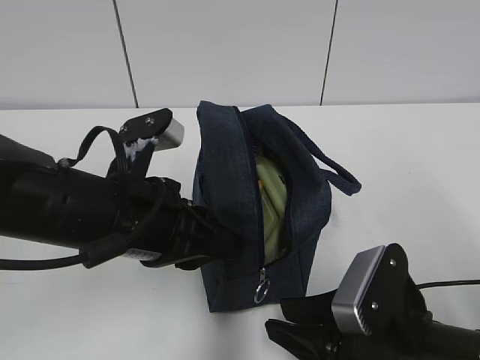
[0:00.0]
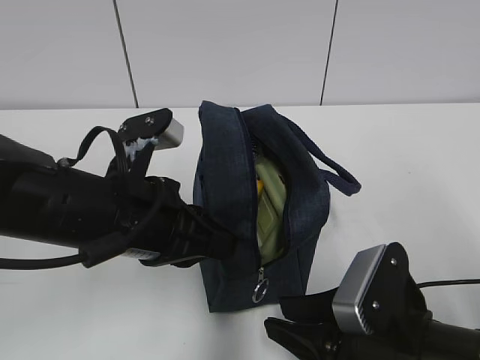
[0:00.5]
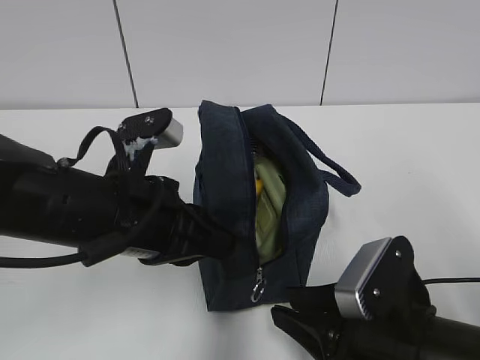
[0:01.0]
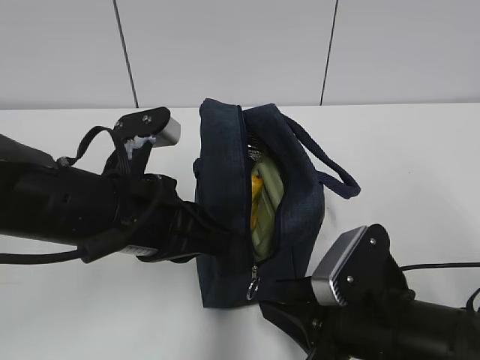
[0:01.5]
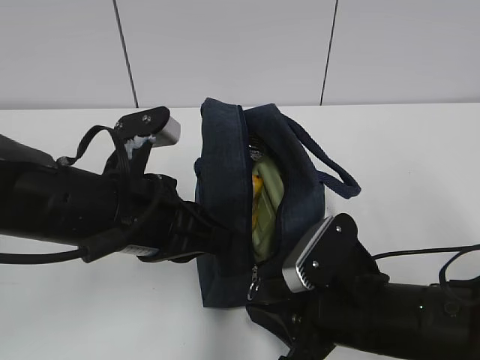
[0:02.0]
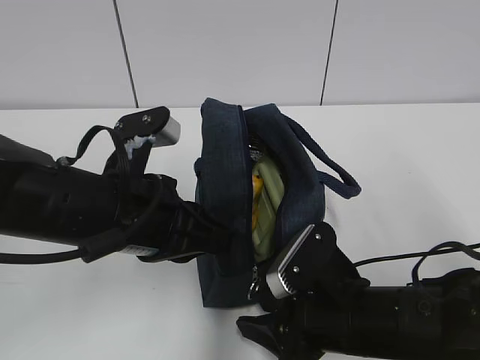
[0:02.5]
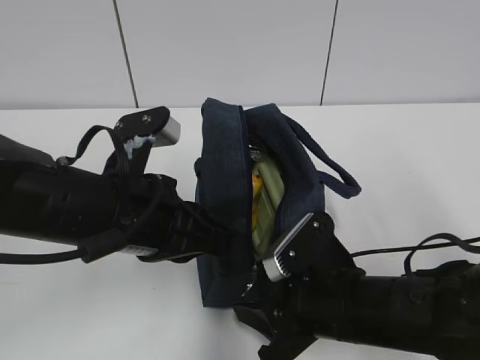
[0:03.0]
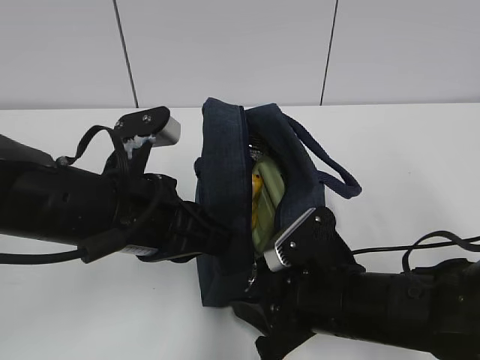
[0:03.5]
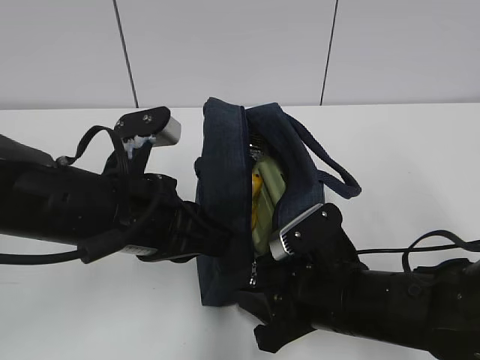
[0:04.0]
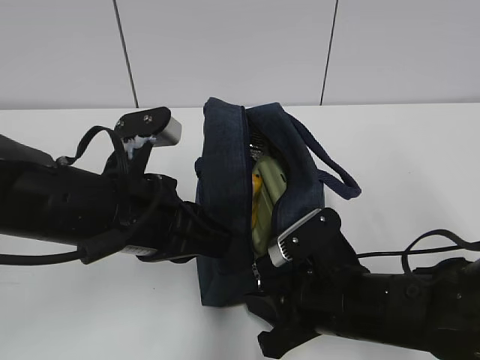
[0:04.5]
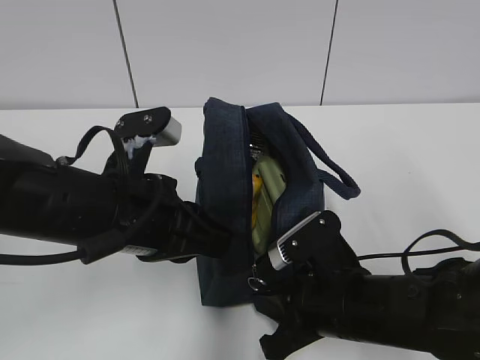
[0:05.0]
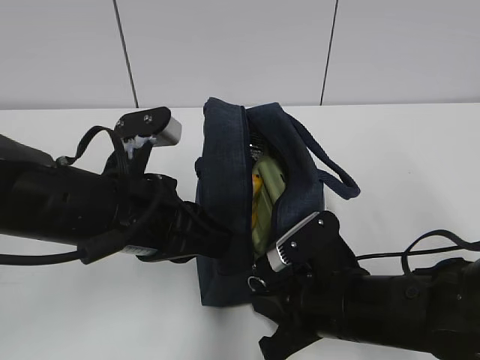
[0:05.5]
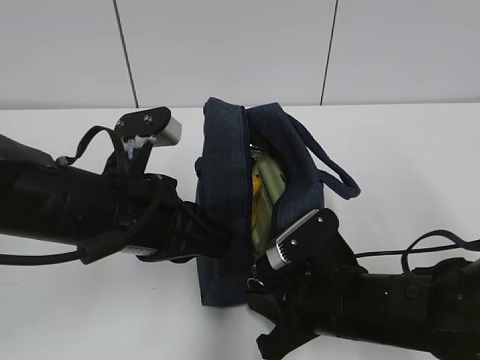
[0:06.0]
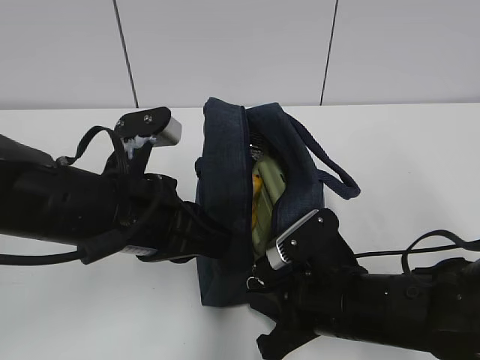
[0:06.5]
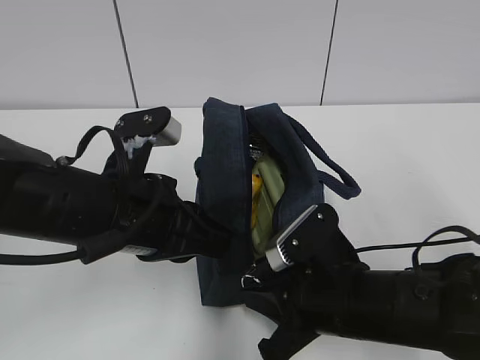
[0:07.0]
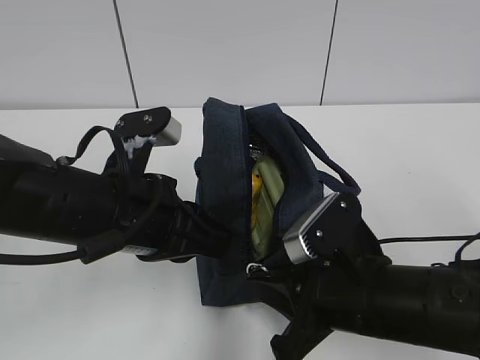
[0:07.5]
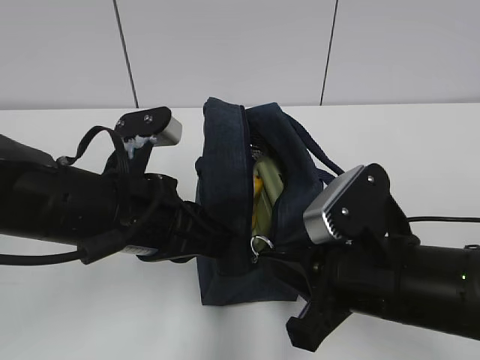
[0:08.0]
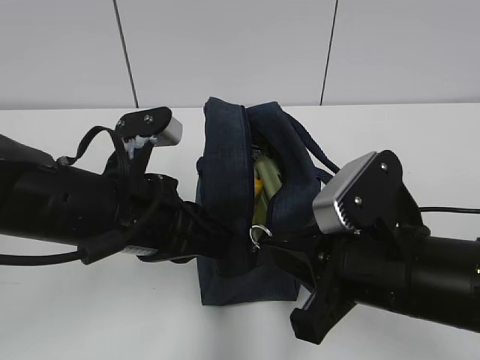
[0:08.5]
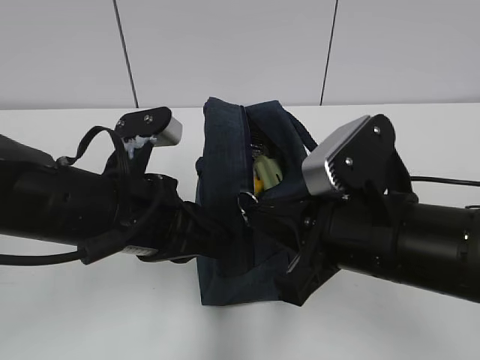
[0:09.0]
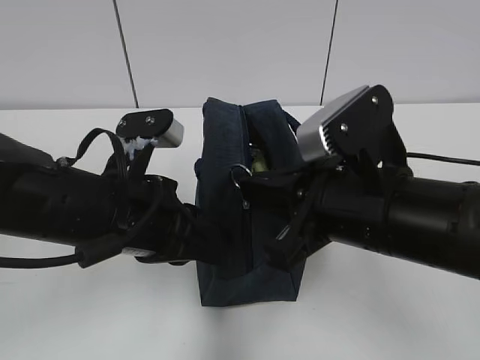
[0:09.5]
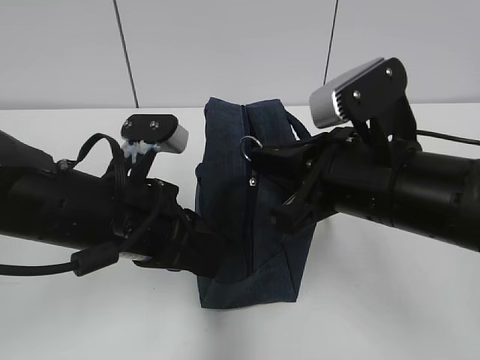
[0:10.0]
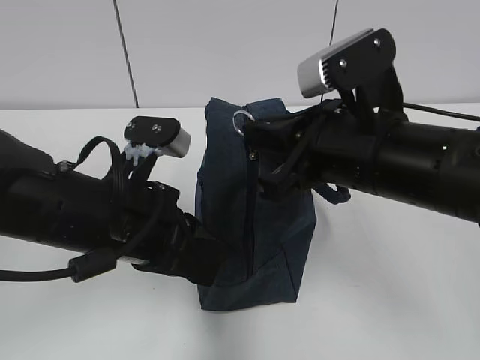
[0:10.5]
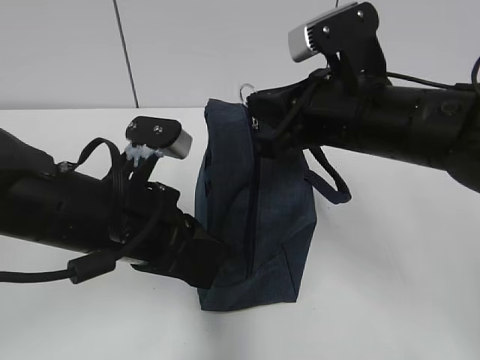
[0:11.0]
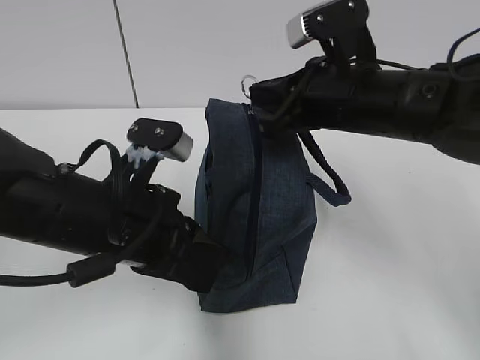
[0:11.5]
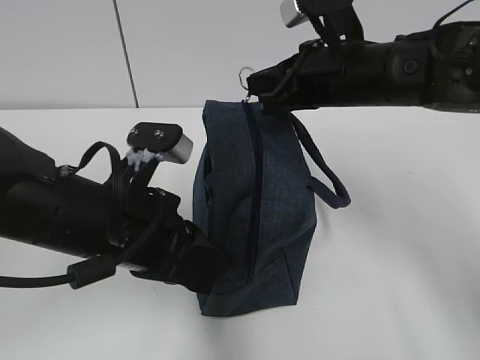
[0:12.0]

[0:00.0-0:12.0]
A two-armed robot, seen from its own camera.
0:00.0 to 0:02.0: There are only small adjustments of the grippers.
0:02.0 to 0:04.0: The grippers move only a little.
0:04.0 to 0:06.0: The right gripper closes up.
0:06.0 to 0:08.0: The right gripper heads upward, covering approximately 5 cm.
0:08.0 to 0:10.0: The right gripper is displaced upward by some 5 cm.
0:10.0 to 0:12.0: The right gripper travels forward by some 15 cm.

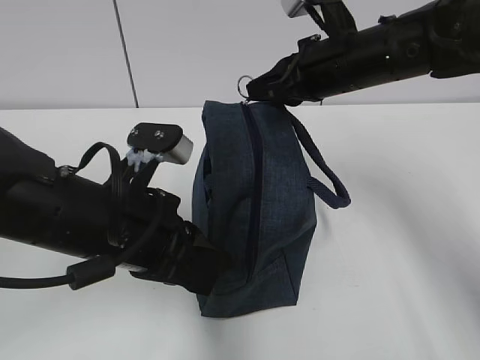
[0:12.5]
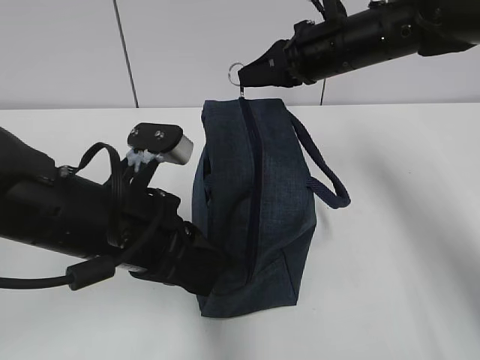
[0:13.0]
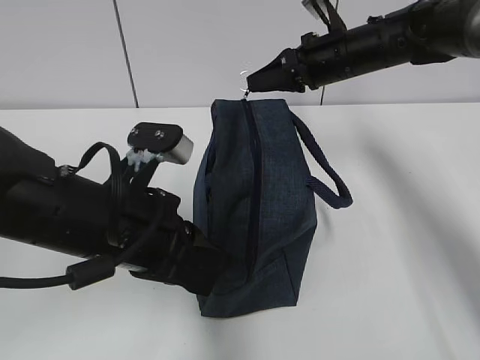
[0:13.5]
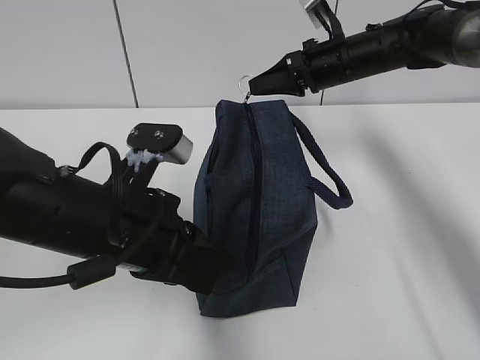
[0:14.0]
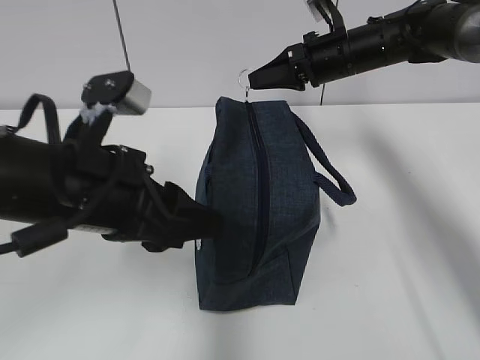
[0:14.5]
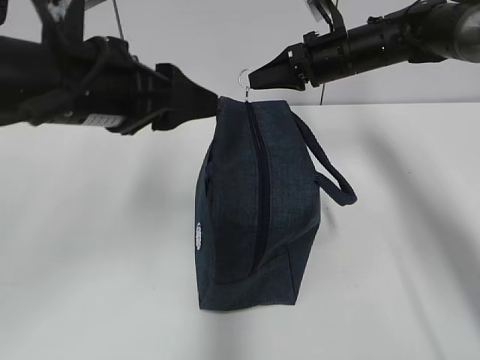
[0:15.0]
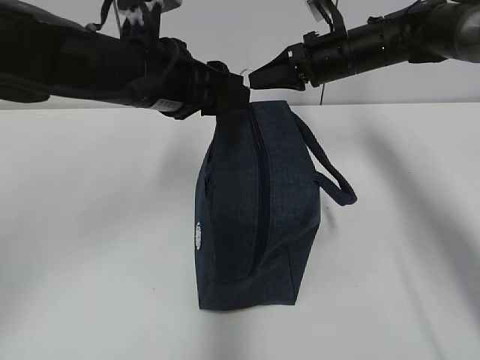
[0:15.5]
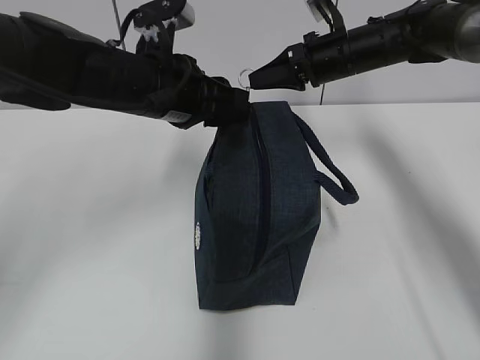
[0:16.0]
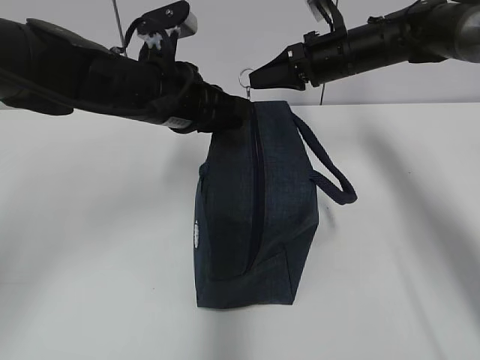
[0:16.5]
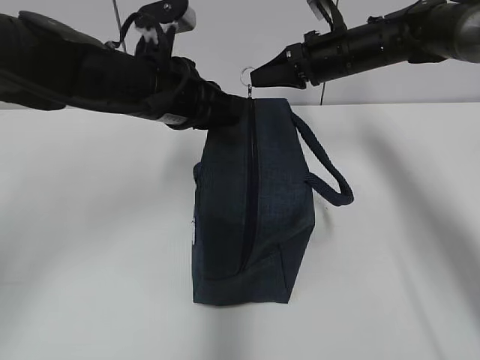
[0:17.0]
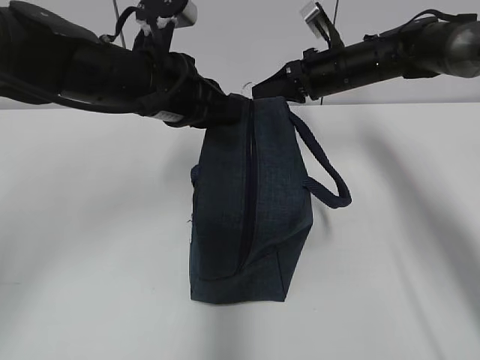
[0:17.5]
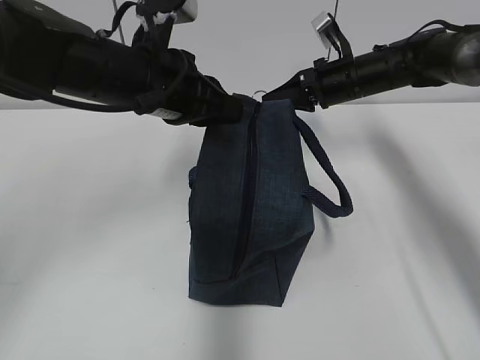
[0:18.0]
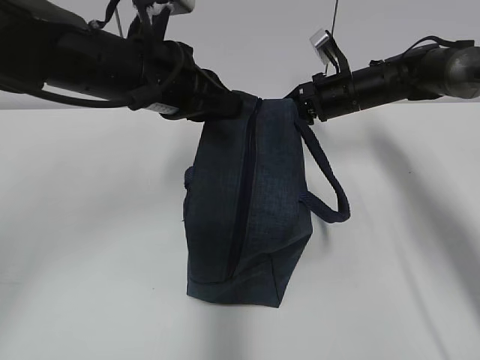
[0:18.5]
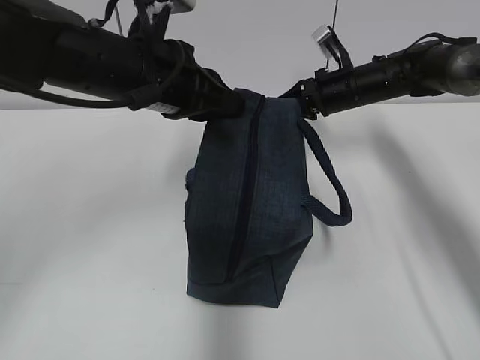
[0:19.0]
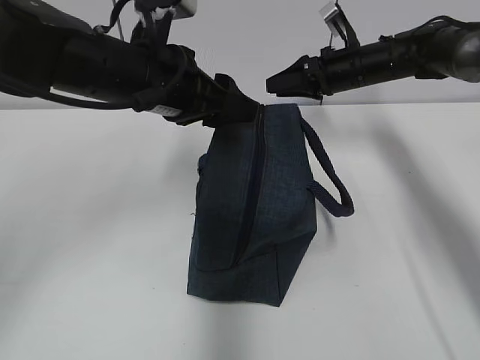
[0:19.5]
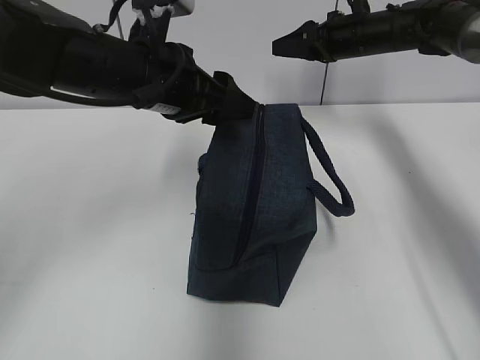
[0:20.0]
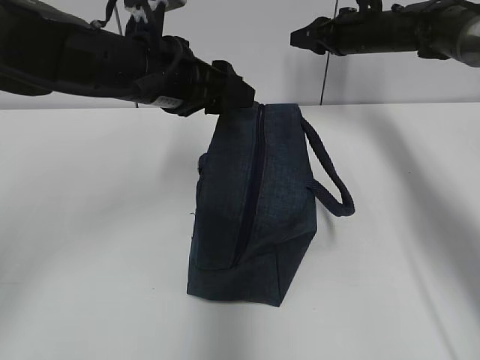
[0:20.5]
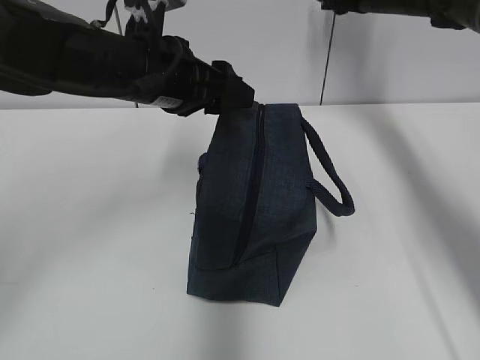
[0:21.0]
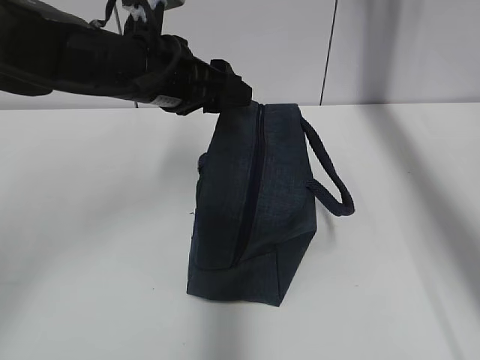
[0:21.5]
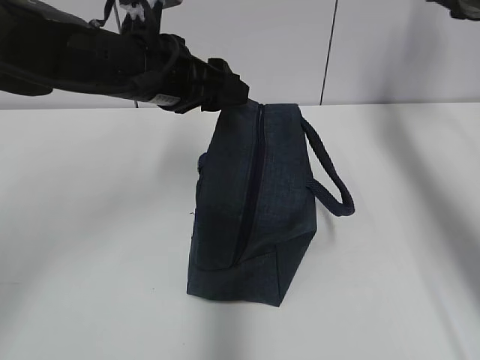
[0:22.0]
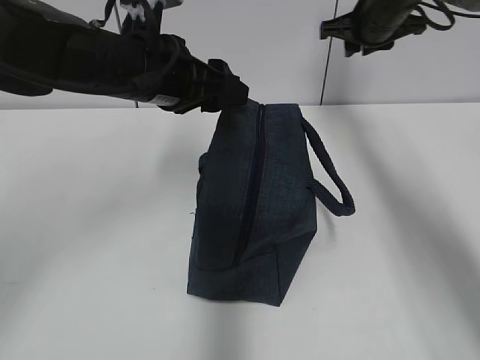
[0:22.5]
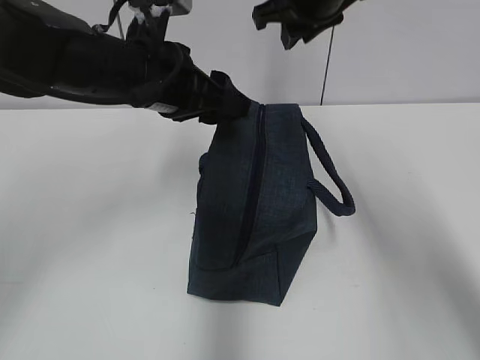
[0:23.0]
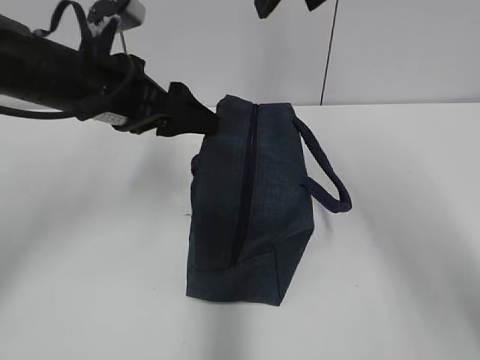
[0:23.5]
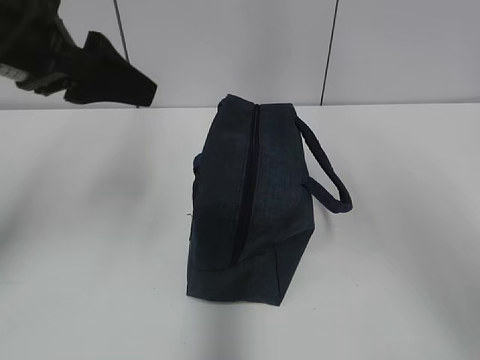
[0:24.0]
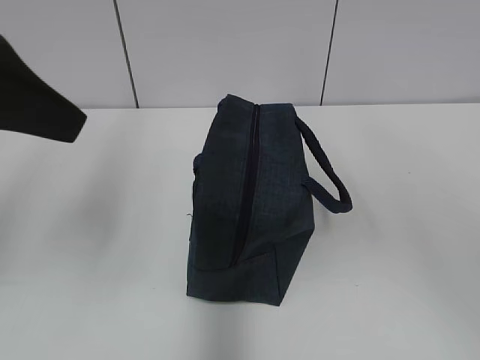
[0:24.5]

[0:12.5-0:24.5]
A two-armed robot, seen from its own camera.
Step, 0:12.5 to 0:19.0: Pull the zipper with your right hand.
0:12.5 to 0:14.5: The right gripper moves forward, some 10 cm; the left gripper opens up.
0:14.5 to 0:16.5: The left gripper travels forward by some 15 cm, and closes up.
0:16.5 to 0:18.5: The right gripper moves downward, some 5 cm.
0:18.5 to 0:20.5: The right gripper travels upward and forward by about 10 cm, and opens its fingers; the left gripper opens up.
0:20.5 to 0:22.5: The right gripper shifts roughly 5 cm backward, and moves approximately 10 cm to the right and comes back.
0:22.5 to 0:24.5: The right gripper is displaced backward and upward by roughly 40 cm, and opens its fingers, while the left gripper is displaced backward, to the left and upward by about 20 cm.

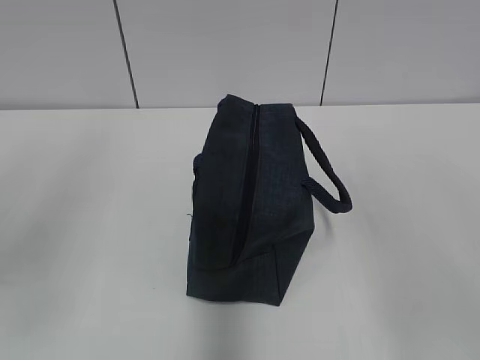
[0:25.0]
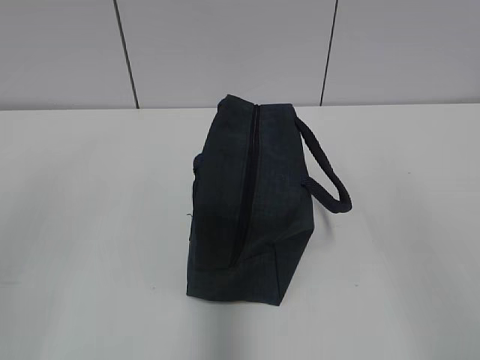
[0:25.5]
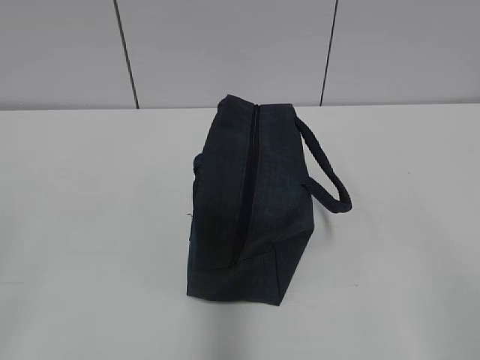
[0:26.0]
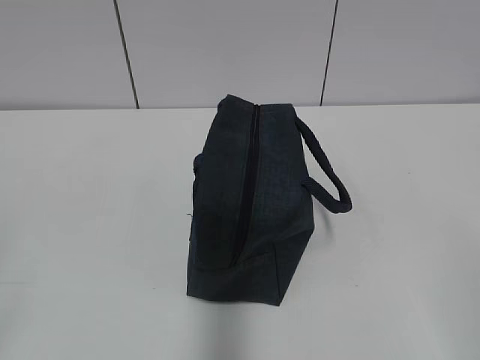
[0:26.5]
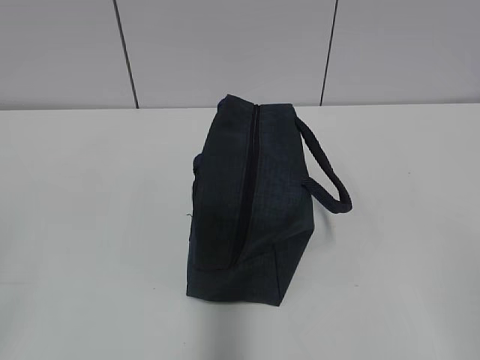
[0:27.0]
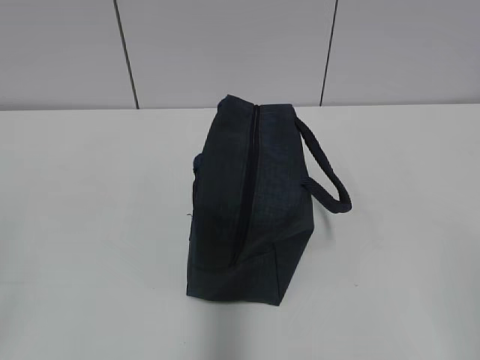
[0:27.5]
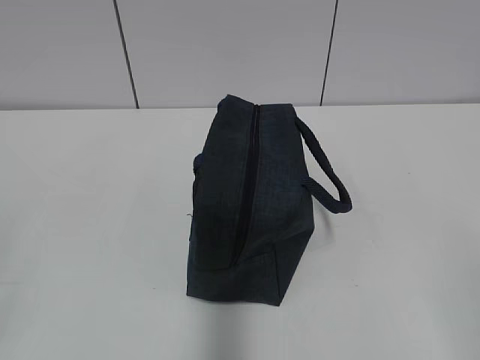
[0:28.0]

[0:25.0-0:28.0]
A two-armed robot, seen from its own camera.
0:25.0 to 0:26.5: The left gripper heads backward, downward and to the left, covering approximately 20 cm.
